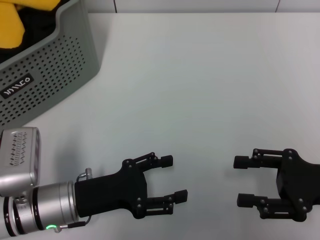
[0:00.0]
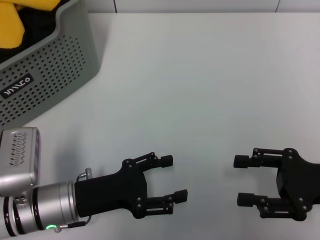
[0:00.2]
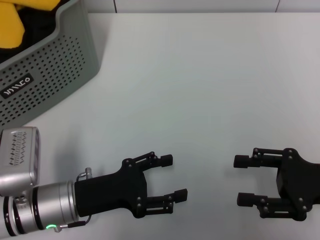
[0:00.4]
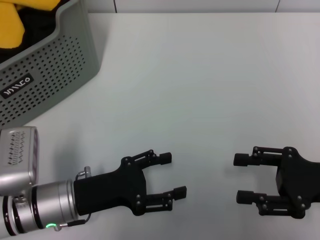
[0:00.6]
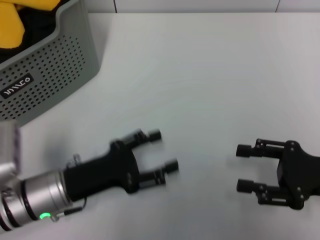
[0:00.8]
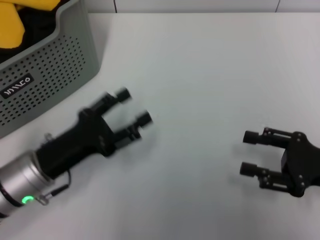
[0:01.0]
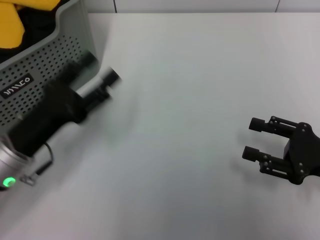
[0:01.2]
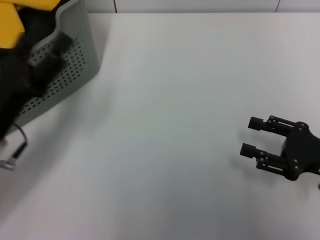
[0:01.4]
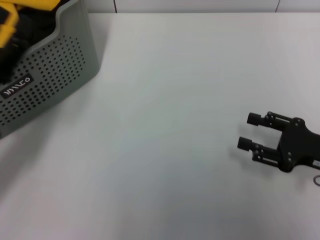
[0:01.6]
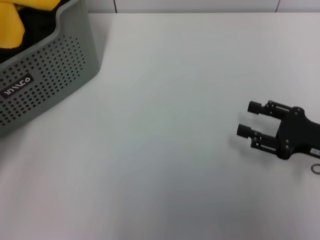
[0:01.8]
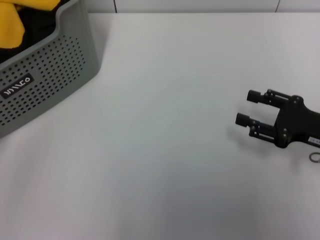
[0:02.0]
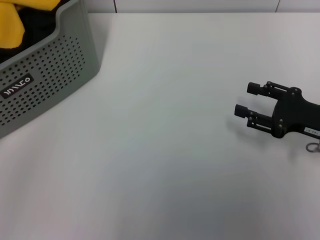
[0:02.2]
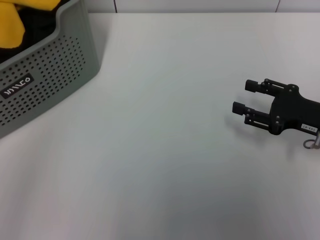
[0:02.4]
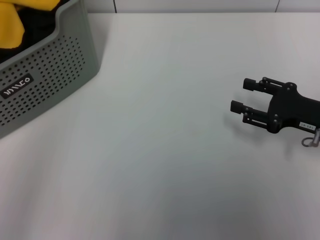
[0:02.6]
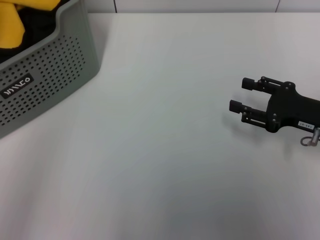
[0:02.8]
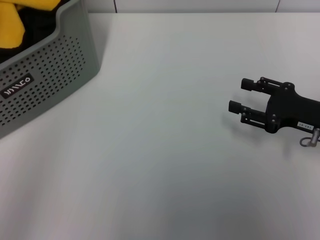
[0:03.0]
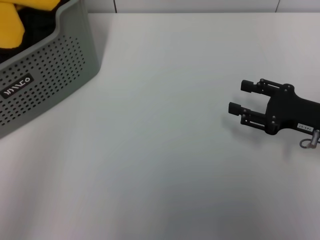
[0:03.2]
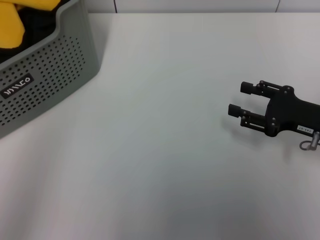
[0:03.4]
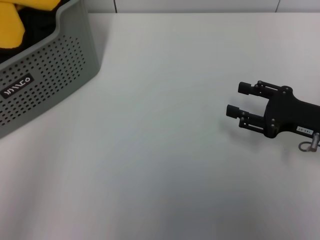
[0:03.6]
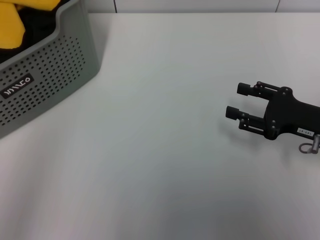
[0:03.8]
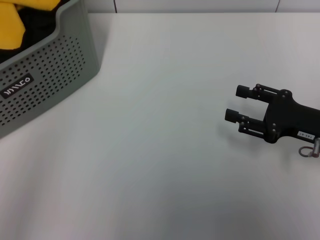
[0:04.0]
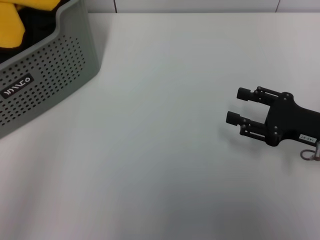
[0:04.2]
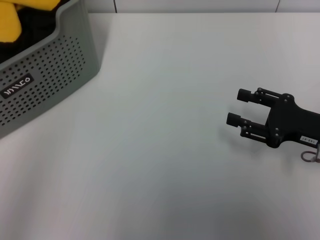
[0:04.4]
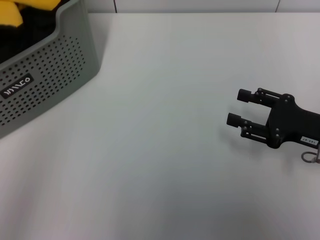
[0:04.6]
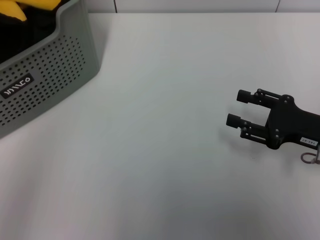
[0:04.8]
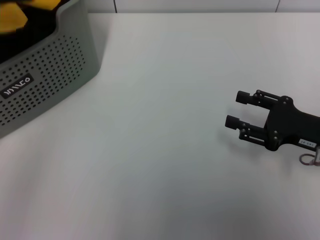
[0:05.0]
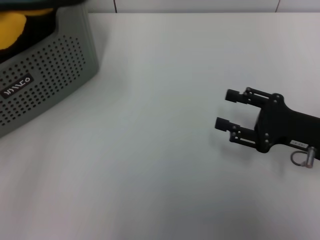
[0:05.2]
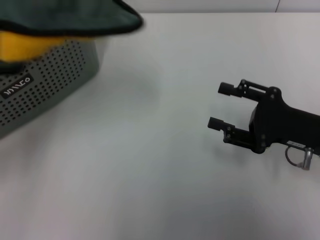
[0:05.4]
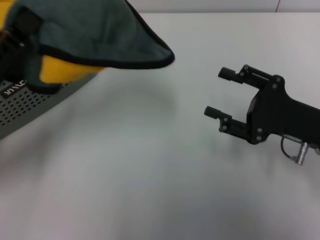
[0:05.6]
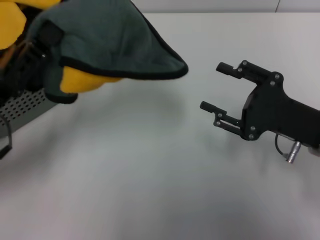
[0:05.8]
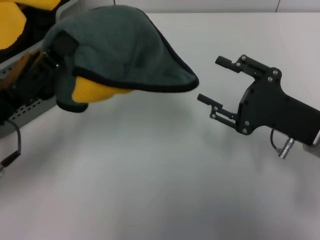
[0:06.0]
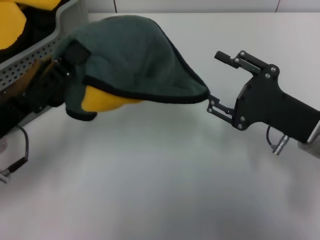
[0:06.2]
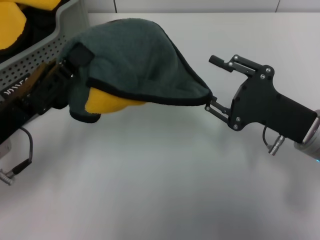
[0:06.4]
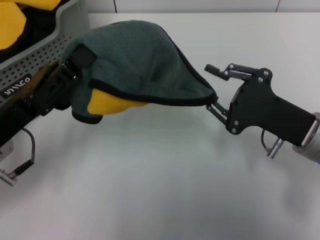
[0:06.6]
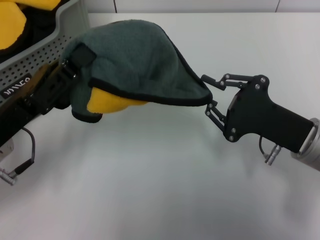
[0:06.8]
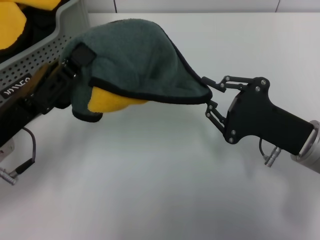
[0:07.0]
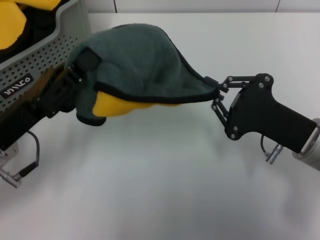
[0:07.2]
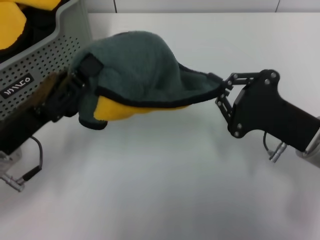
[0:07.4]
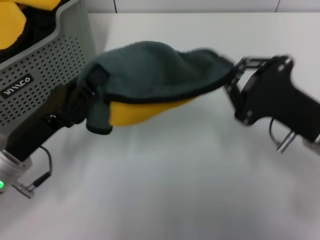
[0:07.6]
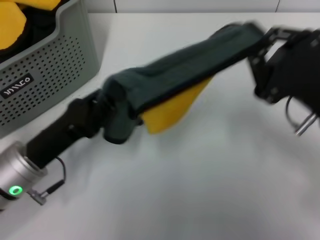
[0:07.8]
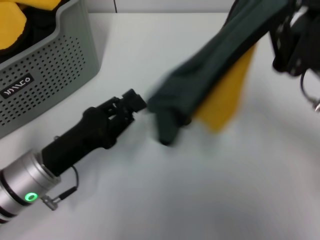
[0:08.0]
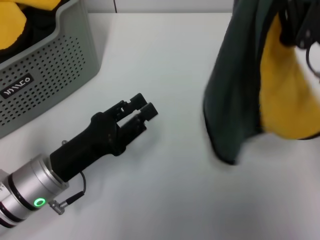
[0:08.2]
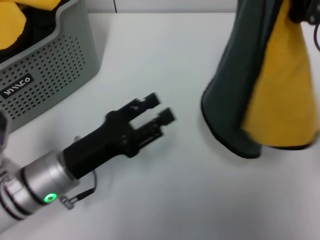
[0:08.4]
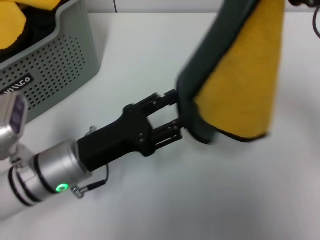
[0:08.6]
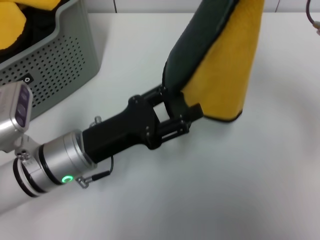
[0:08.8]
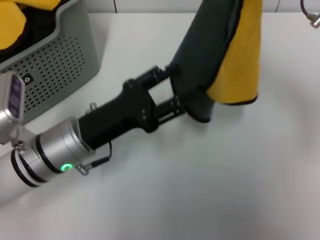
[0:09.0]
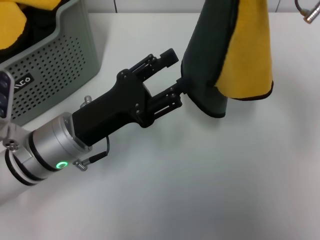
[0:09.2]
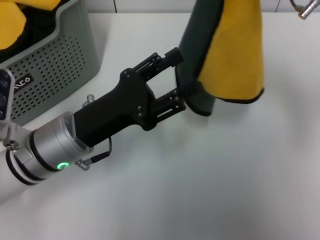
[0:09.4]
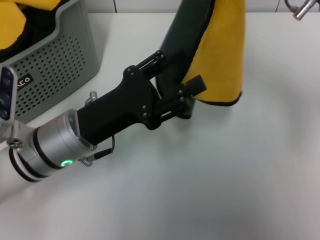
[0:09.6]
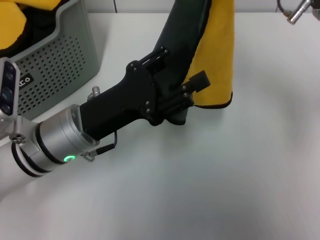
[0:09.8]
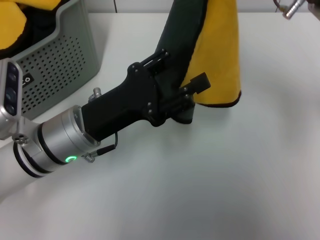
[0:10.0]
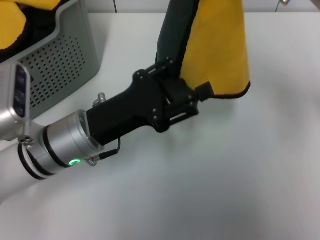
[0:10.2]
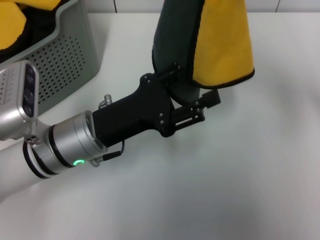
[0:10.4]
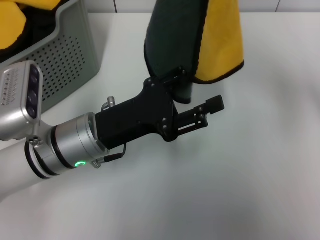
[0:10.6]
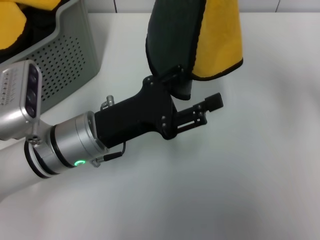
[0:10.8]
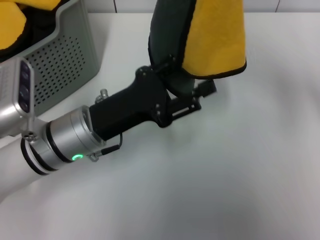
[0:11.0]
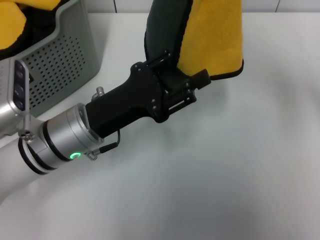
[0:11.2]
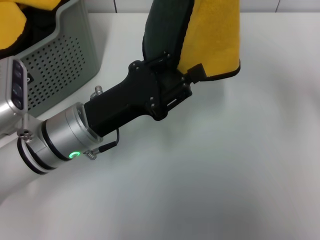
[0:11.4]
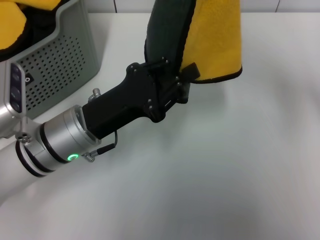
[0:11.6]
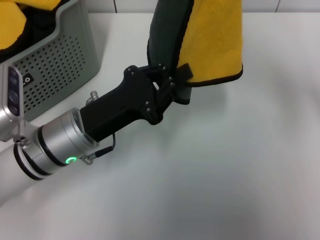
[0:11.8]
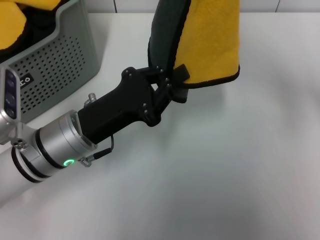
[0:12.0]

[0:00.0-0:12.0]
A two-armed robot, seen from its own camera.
Task of the whole recording: pick up the towel from the storage box and lay it flat on the table.
Step, 0:00.0 to 0:04.4: Pick up a towel with the left gripper.
Step, 0:04.6 to 0:07.2: Spread the towel flat with the left gripper.
0:00.0 to 0:01.6: The left gripper goes approximately 10 cm to the left and upward.
0:01.6 to 0:03.0: The left gripper shifts approximately 15 cm upward and to the left. The right gripper moves approximately 5 cm.
0:04.4 to 0:06.0: The right gripper travels to the left by about 5 cm. Meanwhile the left gripper moves to the right, roughly 15 cm, and closes up.
0:06.0 to 0:07.6: The right gripper closes its fingers.
0:07.6 to 0:09.0: The right gripper goes some 15 cm upward and forward. Meanwhile the left gripper is displaced to the right by about 5 cm, and opens its fingers.
0:09.0 to 0:10.4: The right gripper shifts by some 5 cm.
0:10.4 to 0:12.0: The left gripper closes its fingers.

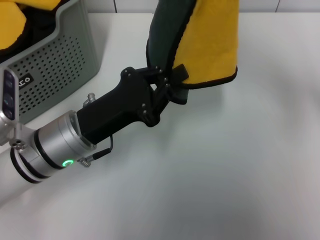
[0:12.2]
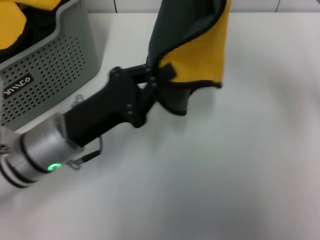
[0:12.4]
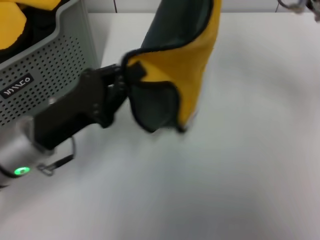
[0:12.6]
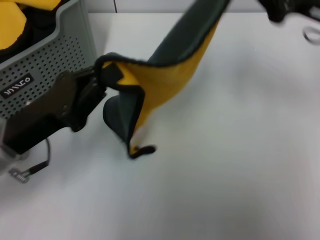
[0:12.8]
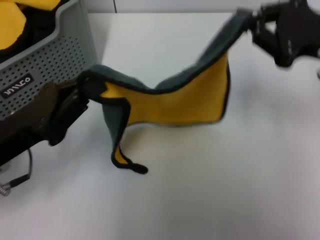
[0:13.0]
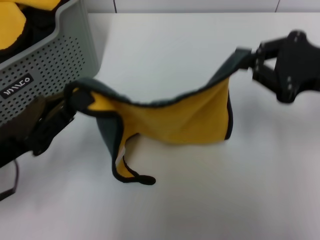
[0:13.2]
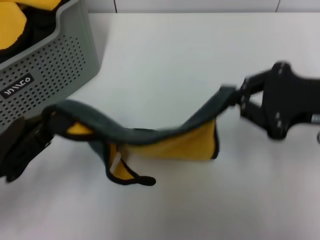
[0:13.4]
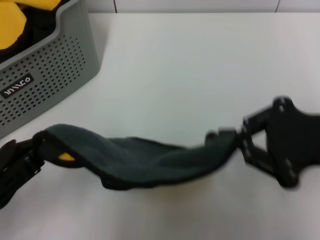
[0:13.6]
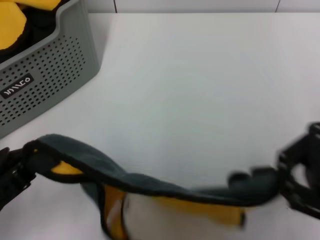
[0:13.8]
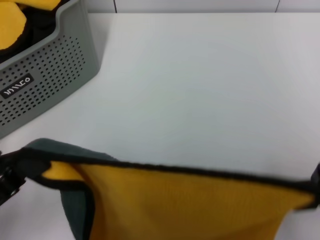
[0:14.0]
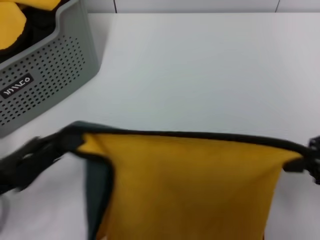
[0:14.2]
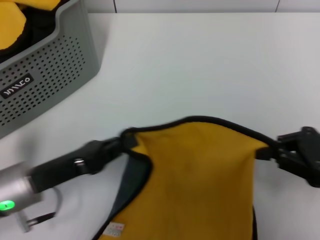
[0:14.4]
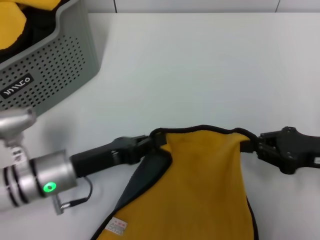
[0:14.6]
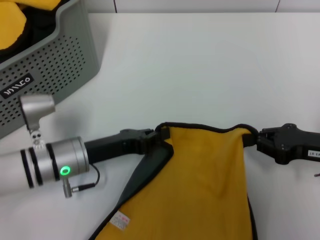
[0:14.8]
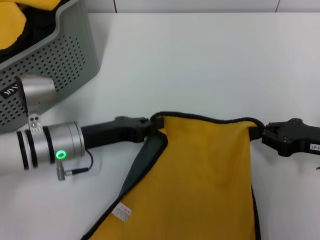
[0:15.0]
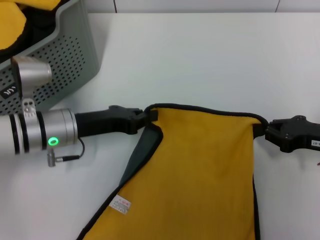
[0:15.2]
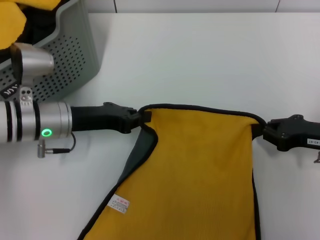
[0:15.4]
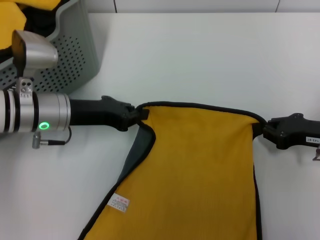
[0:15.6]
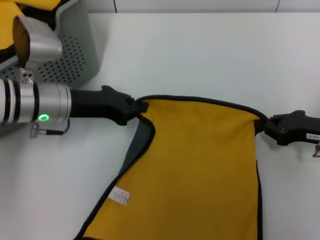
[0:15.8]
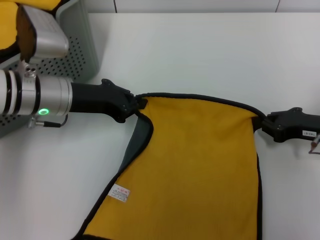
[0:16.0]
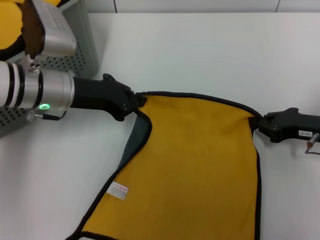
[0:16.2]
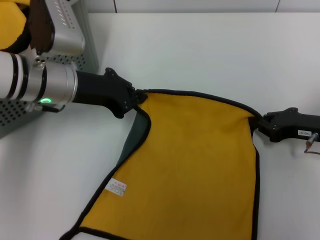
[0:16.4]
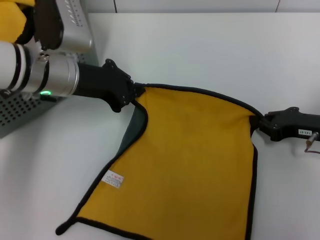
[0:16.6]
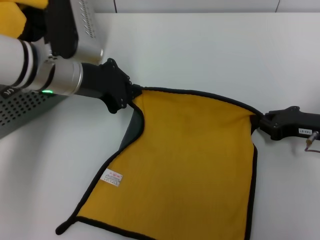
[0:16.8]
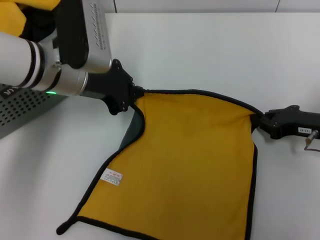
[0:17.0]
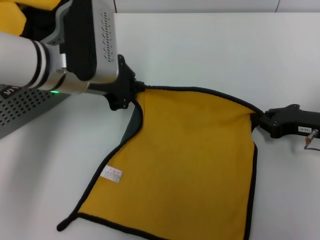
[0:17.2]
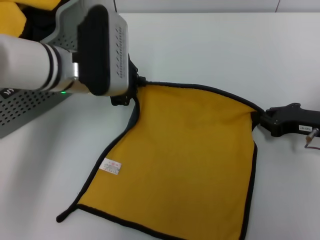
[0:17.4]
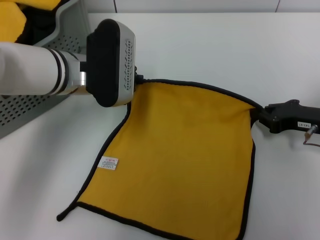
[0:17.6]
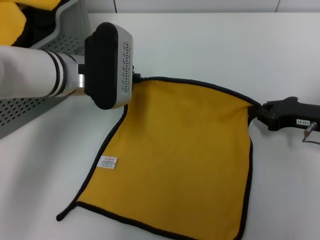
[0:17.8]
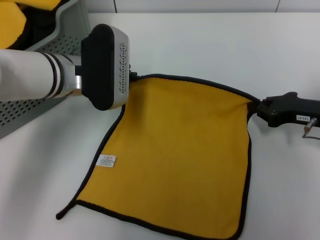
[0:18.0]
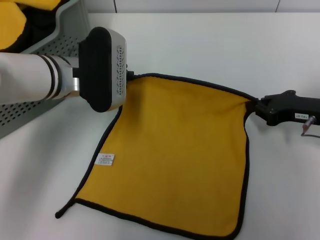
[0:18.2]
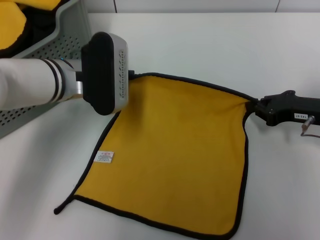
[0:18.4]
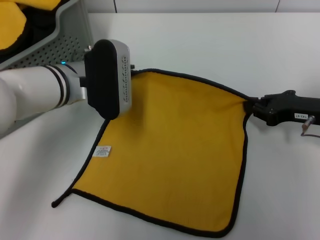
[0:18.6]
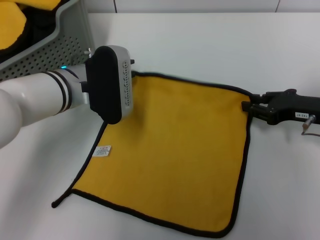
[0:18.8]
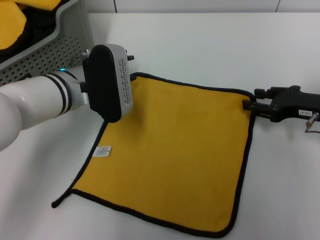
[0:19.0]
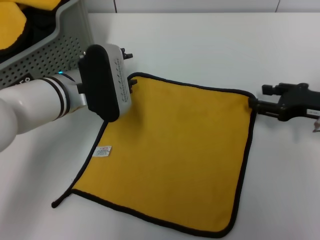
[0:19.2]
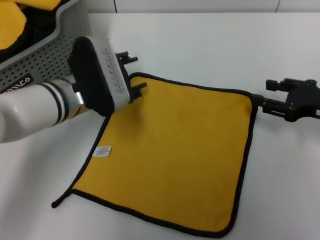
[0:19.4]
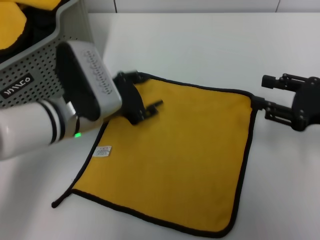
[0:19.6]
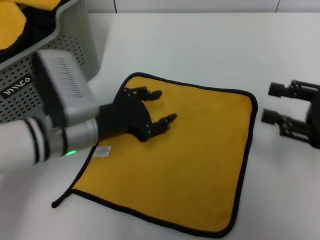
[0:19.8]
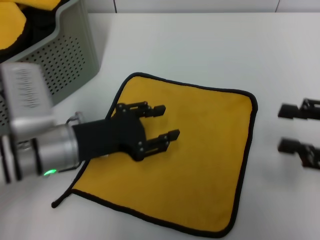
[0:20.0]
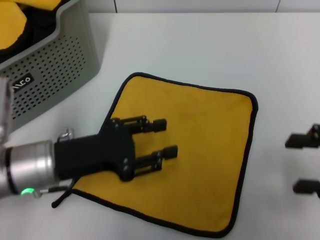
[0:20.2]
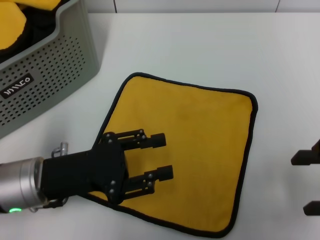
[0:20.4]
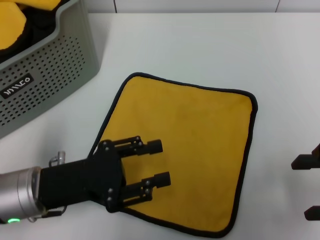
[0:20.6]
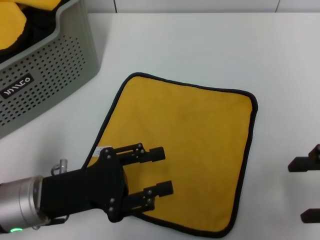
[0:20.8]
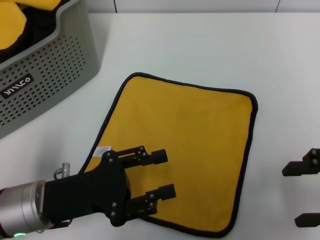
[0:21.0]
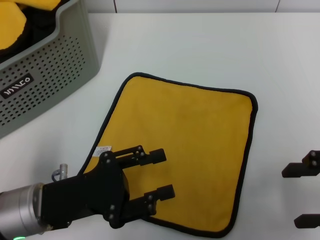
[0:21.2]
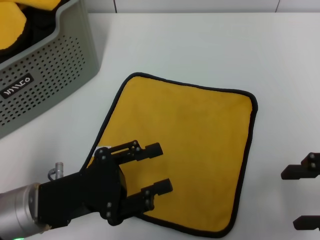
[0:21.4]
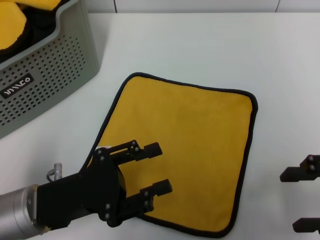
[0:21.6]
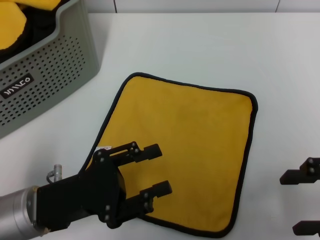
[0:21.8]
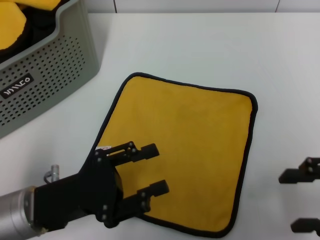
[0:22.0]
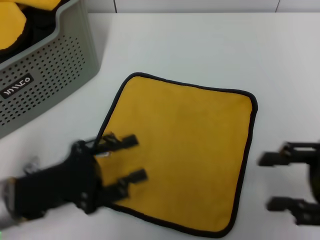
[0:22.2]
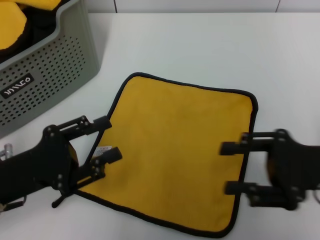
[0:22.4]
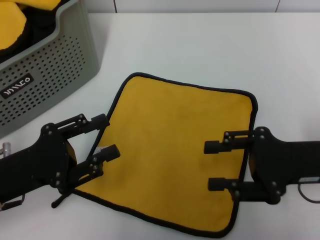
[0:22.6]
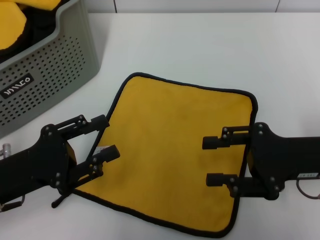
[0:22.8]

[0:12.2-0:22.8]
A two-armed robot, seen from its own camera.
Task of the whole recording: pick up the towel from the storage box and lay it flat on the table.
Step, 0:12.2 to 0:18.8: Spread the towel flat with the right gripper.
0:12.2 to 0:13.8: The right gripper goes about 20 cm backward and to the right, while the left gripper heads to the left and backward, covering roughly 15 cm.
0:13.8 to 0:15.2: The right gripper heads downward and forward, covering roughly 15 cm, while the left gripper shifts approximately 20 cm forward and to the right.
0:15.2 to 0:16.8: The left gripper shifts some 10 cm upward.
0:18.2 to 0:19.8: The grippers both shift backward by some 5 cm. The right gripper opens. Meanwhile the left gripper opens up.
0:19.8 to 0:21.2: The right gripper goes about 5 cm backward, while the left gripper goes about 10 cm backward.
0:21.2 to 0:22.8: The right gripper is displaced to the left and forward by roughly 10 cm. Meanwhile the left gripper shifts some 5 cm to the left.
